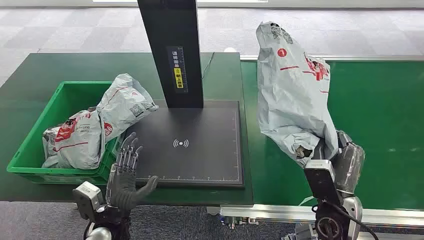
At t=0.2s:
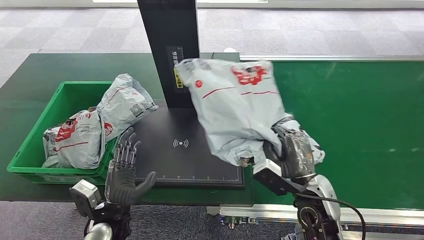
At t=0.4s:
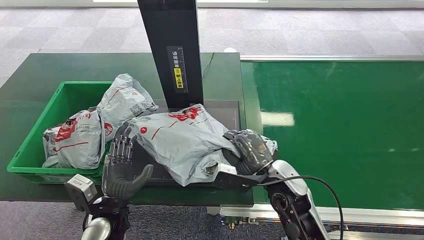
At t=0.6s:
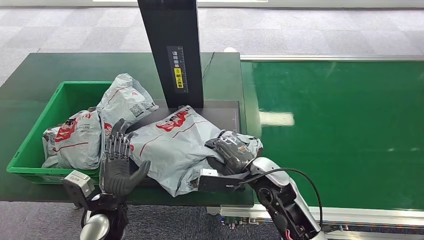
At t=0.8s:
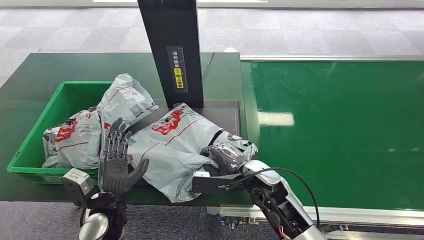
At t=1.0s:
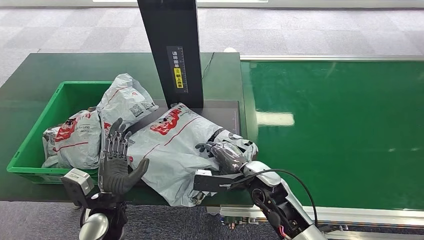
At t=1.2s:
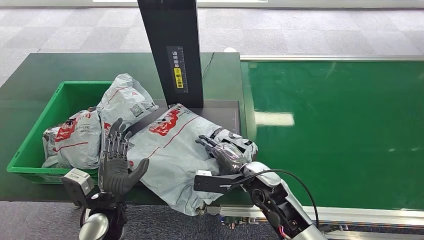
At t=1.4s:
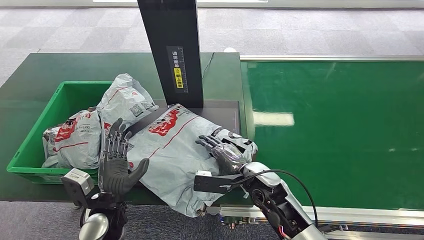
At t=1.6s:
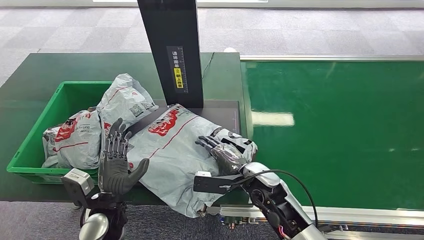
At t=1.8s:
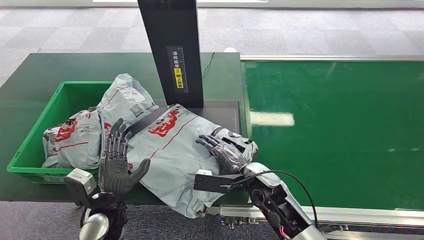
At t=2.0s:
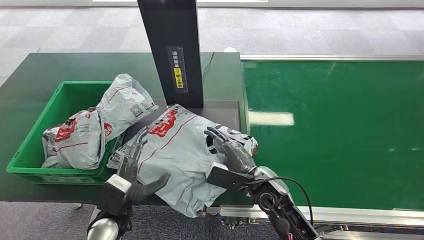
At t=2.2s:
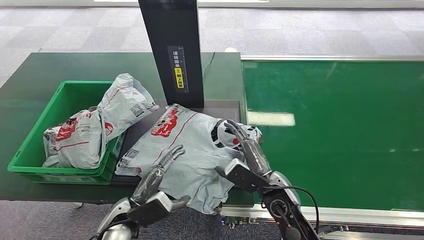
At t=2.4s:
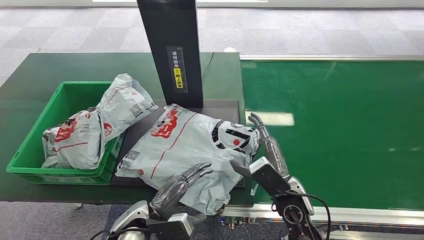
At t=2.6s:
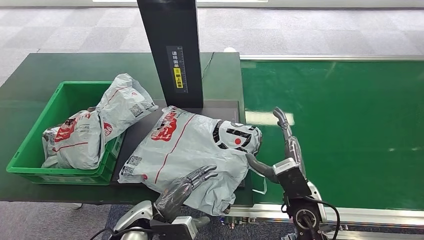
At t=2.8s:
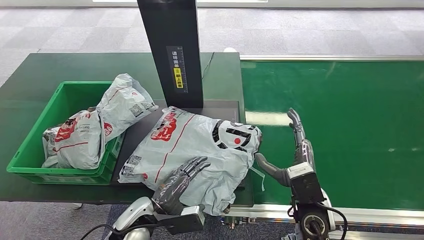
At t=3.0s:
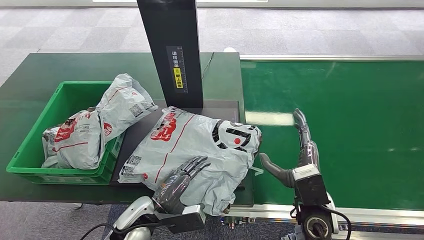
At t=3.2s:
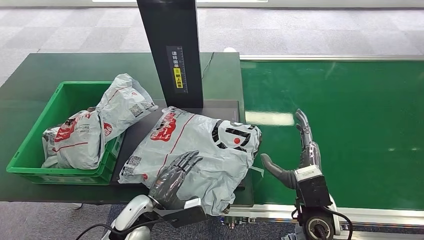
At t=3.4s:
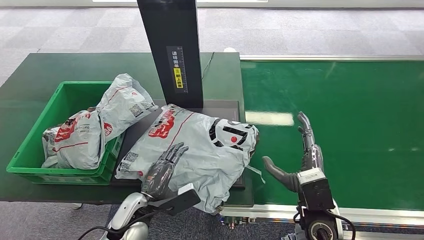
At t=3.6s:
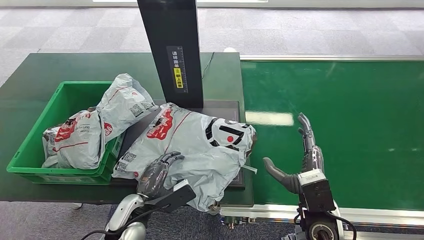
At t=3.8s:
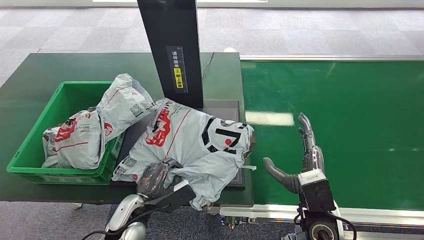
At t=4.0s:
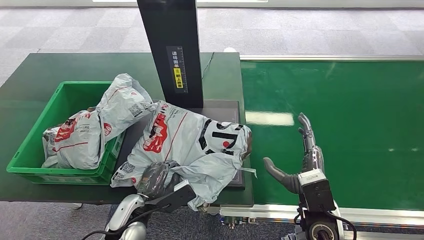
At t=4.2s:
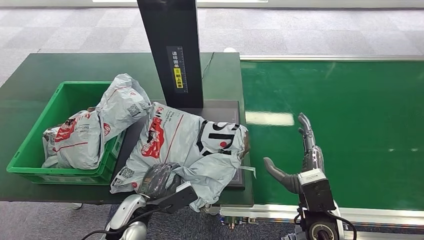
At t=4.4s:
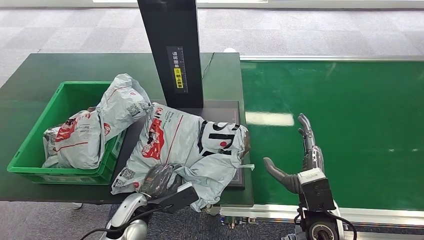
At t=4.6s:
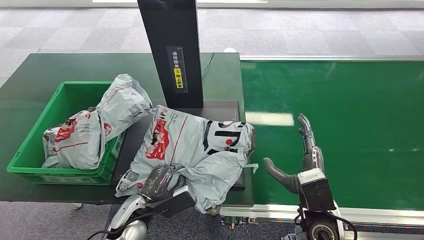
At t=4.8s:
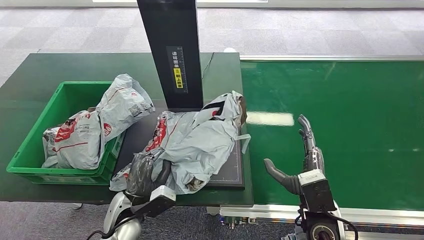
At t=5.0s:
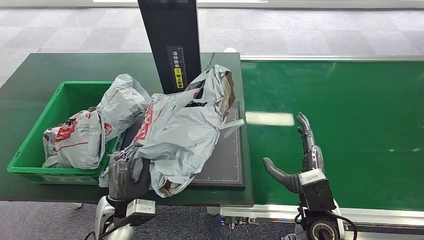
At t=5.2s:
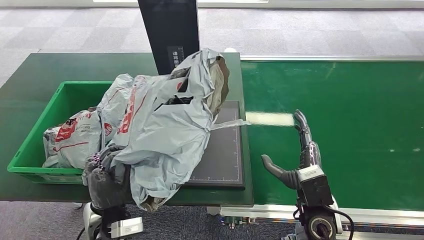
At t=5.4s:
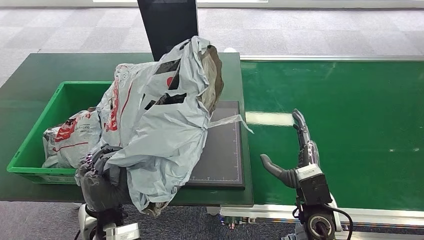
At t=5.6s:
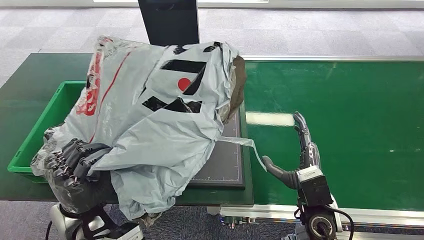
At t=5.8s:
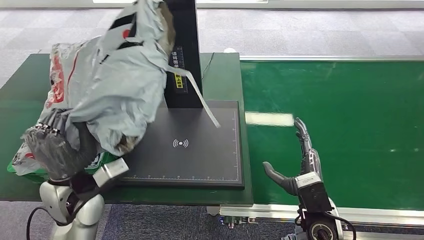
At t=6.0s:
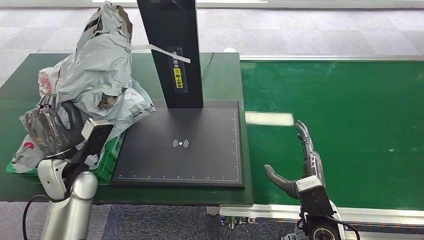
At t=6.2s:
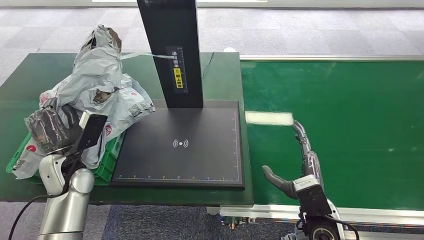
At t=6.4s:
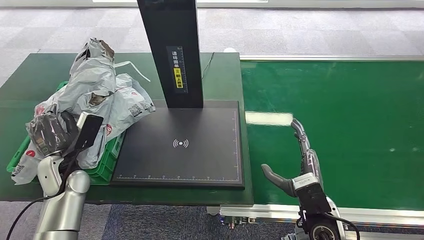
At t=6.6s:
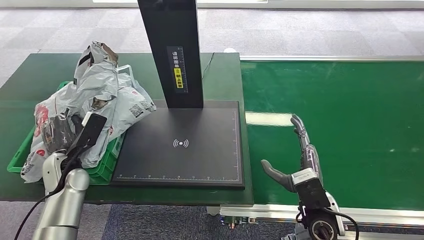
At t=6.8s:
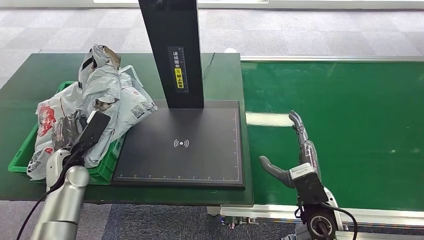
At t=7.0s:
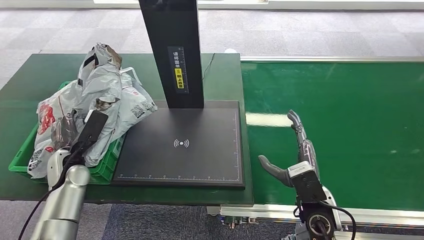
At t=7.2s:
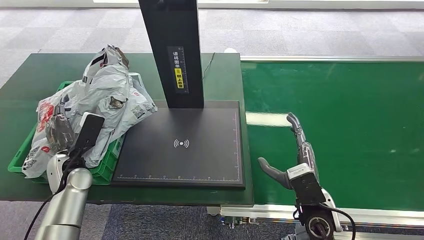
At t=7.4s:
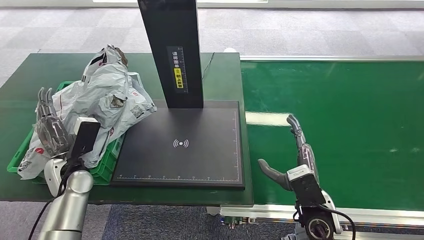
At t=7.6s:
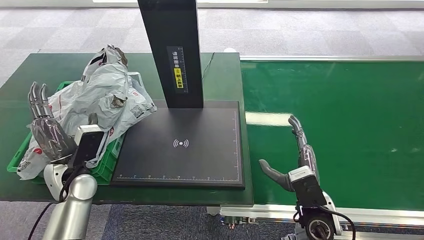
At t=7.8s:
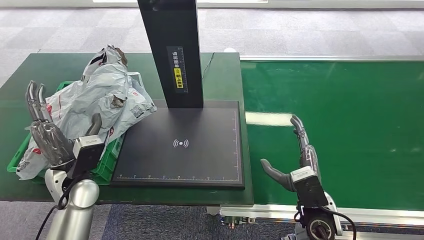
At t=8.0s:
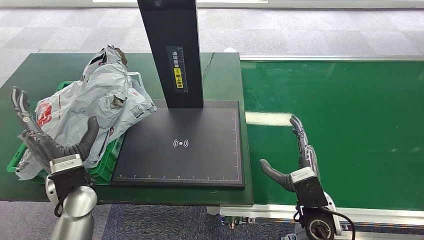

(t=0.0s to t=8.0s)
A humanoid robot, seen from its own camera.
Step, t=0.0s - t=0.2s: Pick up the package from the conveyor belt.
Step, t=7.8s - t=8.0s: Place the package into the parcel locker.
t=1.6s - t=3.2s: The right hand shifts some 10 cm to the right and backward, while the left hand shifts about 5 cm to the right.
t=6.4s - t=8.0s: The left hand heads to the right, covering roughly 5 cm.
